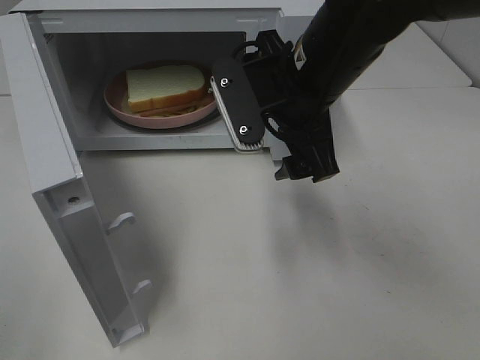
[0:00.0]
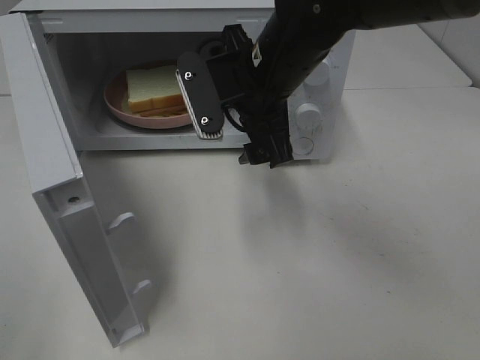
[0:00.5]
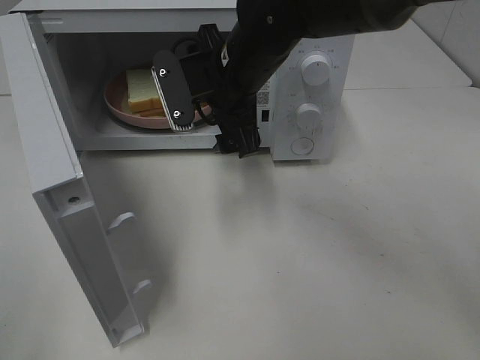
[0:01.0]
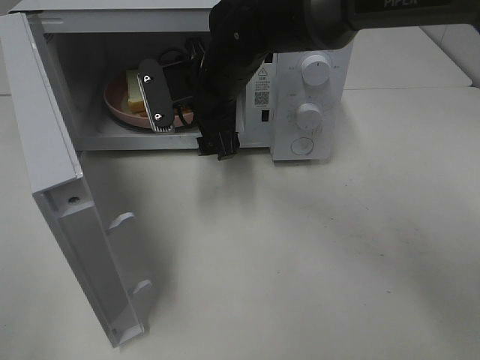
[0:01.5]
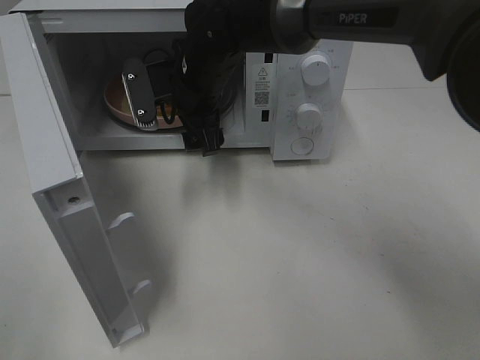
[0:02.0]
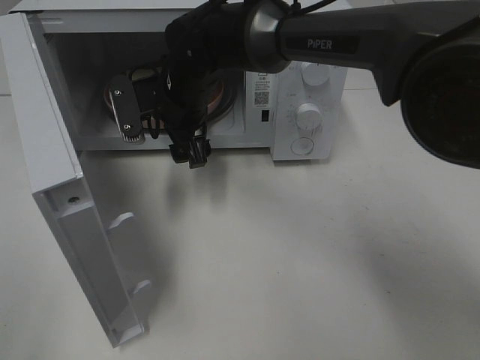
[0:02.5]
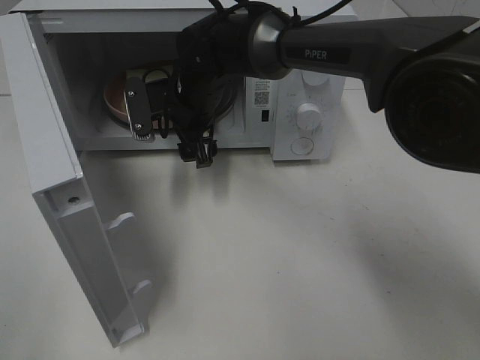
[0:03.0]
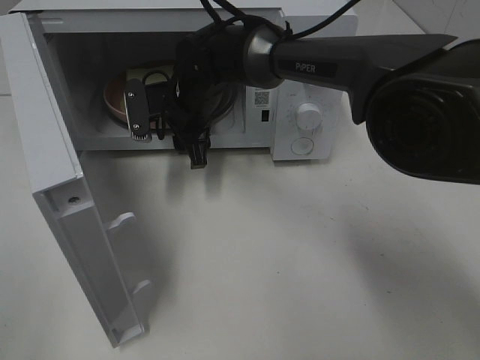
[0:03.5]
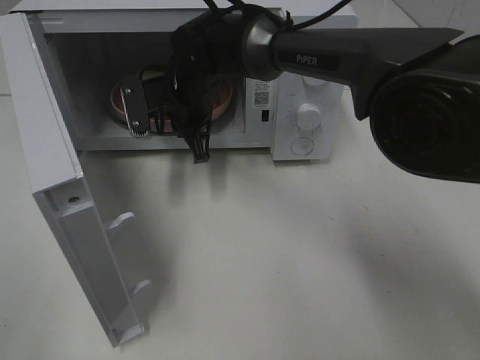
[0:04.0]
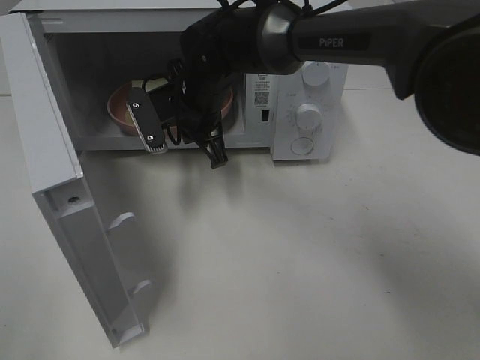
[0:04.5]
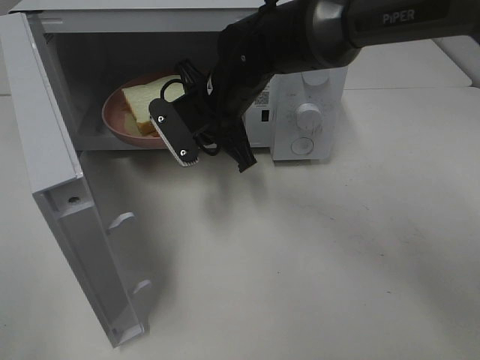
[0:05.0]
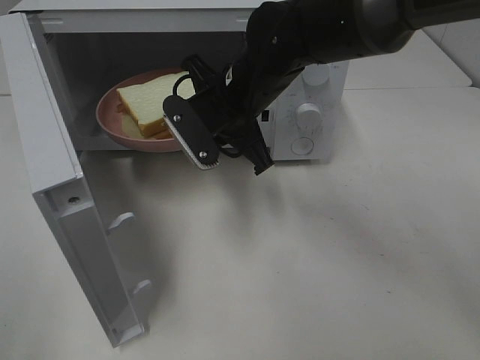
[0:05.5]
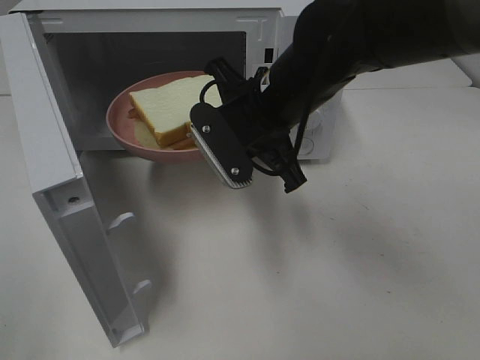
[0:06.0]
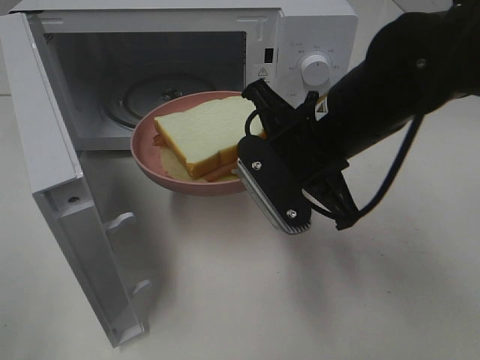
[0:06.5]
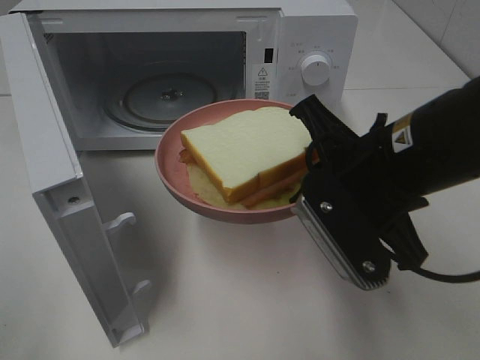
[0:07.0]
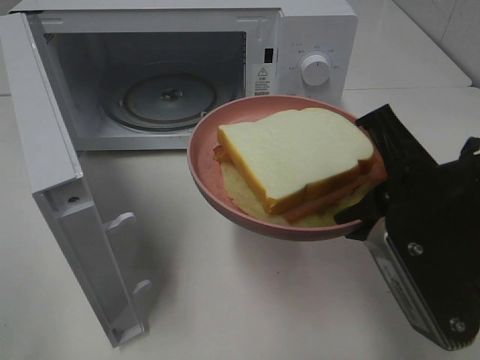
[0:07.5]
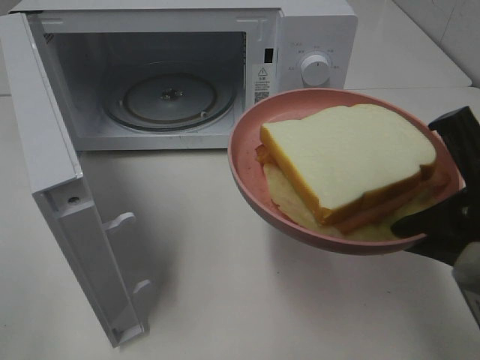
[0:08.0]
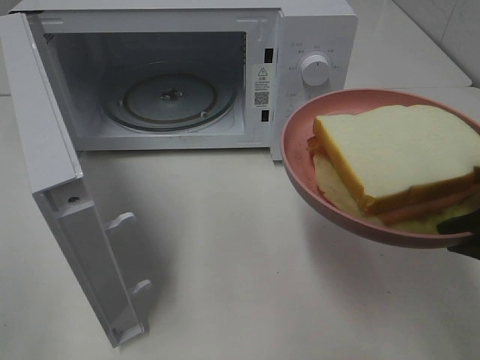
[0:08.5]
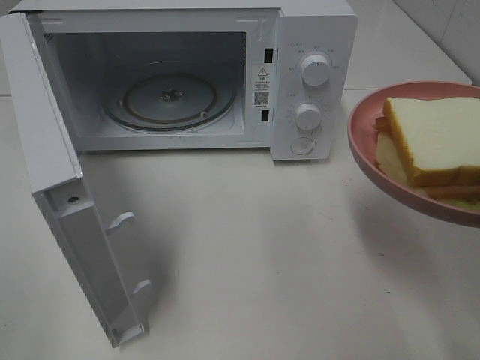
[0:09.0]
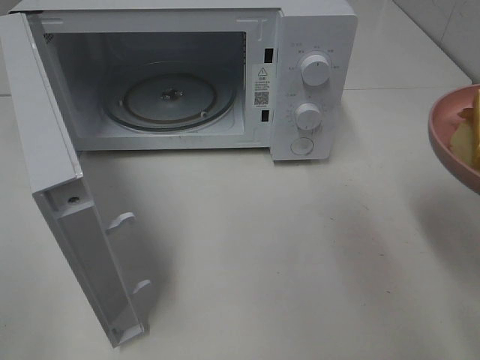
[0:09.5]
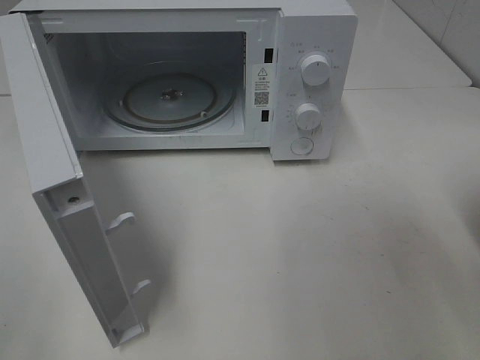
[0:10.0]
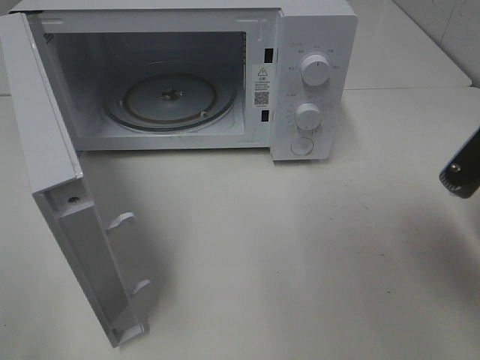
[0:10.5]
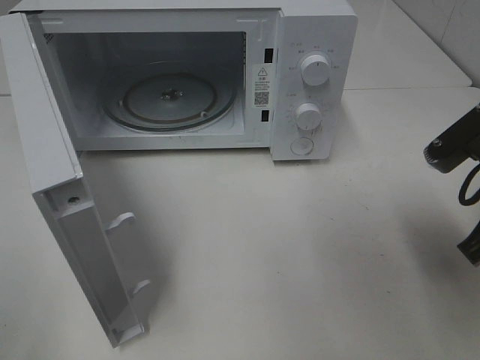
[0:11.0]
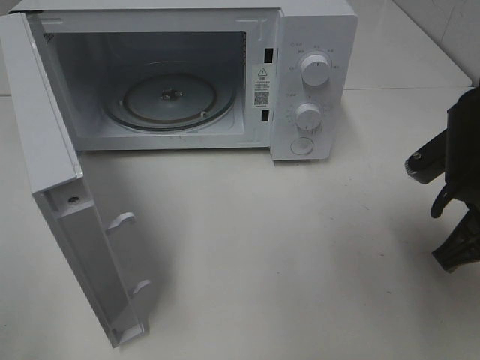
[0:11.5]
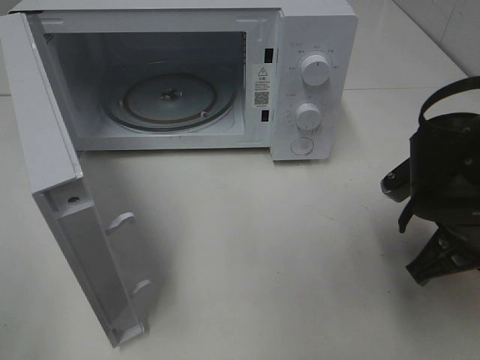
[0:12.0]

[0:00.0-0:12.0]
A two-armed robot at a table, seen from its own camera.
Task of the whole recording: Heat Sandwich.
Step, 0:00.0 to 0:03.5: Right hand: grab the plate with the sandwich.
0:00.0 to 0:02.0: The right gripper heads forward, to the left and downward, covering approximately 15 cm.
0:02.0 to 0:04.0: The right gripper closes its fingers.
0:04.0 to 0:06.0: The right gripper moves backward, to the right and upward, approximately 15 cm.
0:06.0 to 0:08.0: The right gripper heads backward and to the right, covering about 25 cm.
0:08.0 to 0:10.0: The right gripper is displaced to the right by about 5 cm.
0:10.0 to 0:12.0: The right gripper shifts roughly 15 cm downward, forward and to the left.

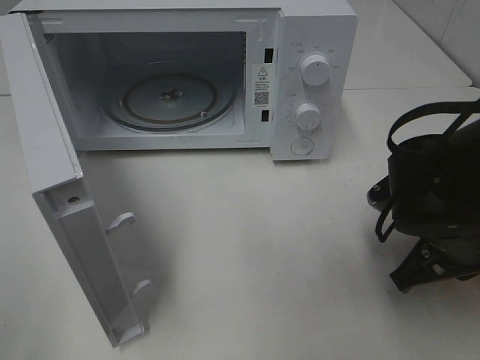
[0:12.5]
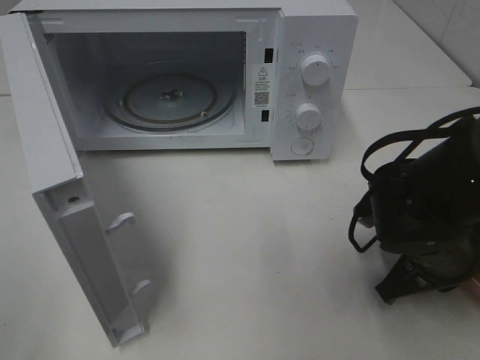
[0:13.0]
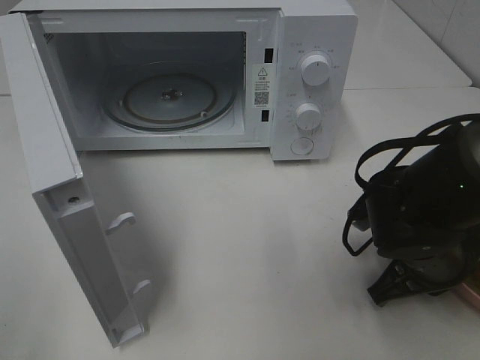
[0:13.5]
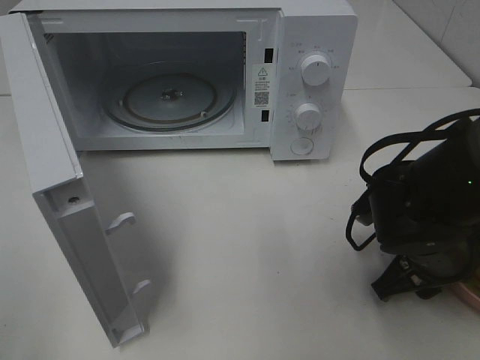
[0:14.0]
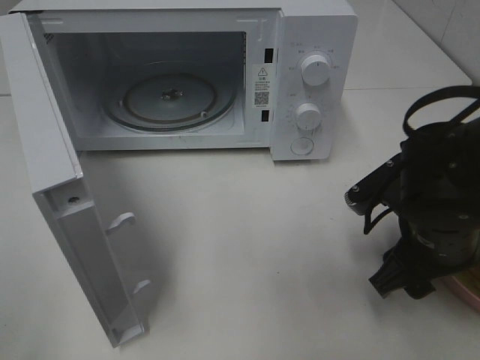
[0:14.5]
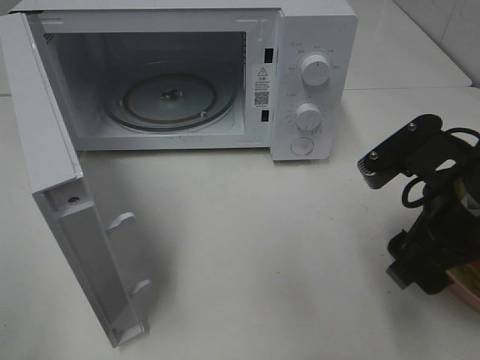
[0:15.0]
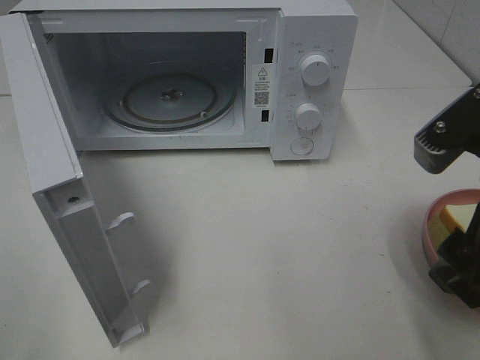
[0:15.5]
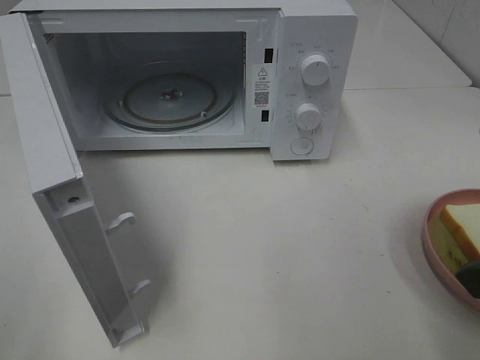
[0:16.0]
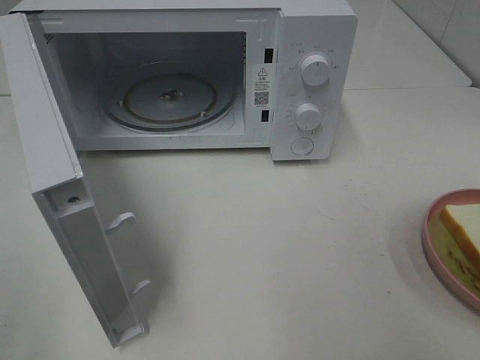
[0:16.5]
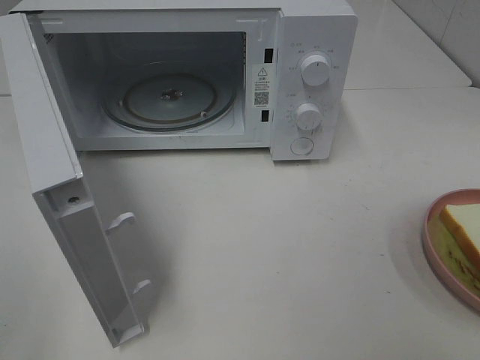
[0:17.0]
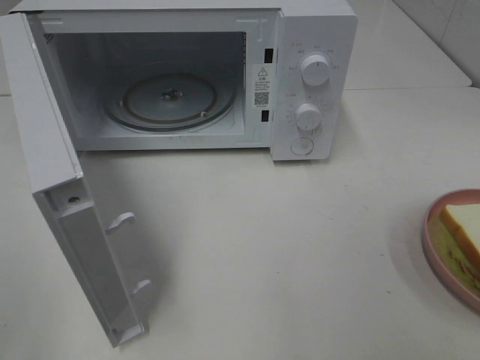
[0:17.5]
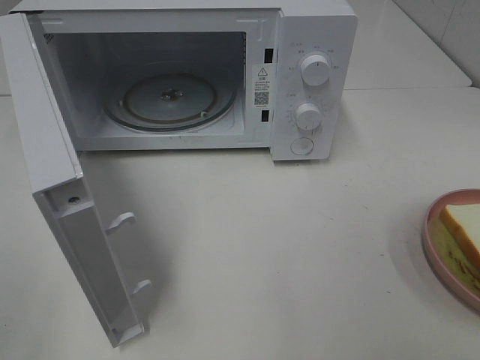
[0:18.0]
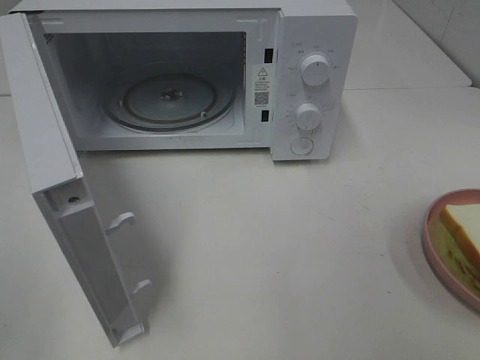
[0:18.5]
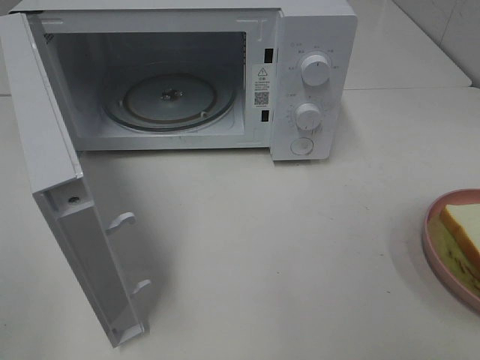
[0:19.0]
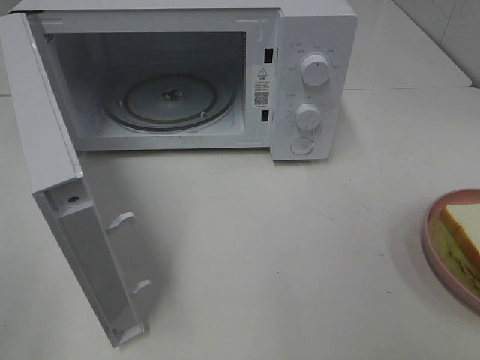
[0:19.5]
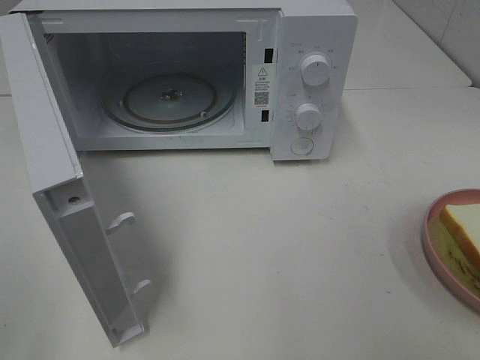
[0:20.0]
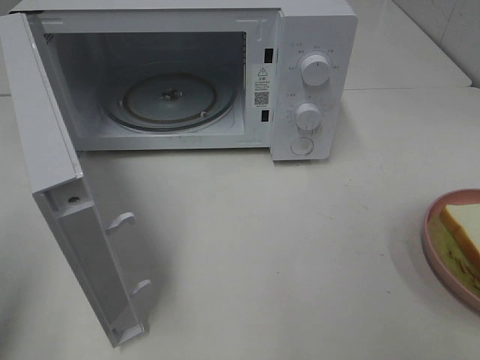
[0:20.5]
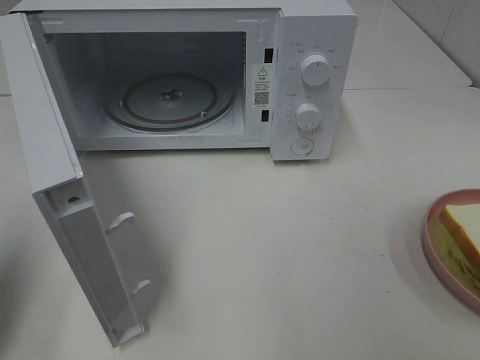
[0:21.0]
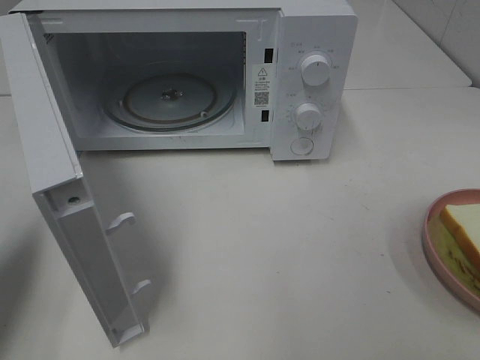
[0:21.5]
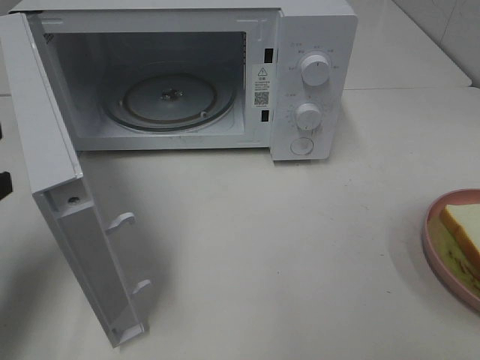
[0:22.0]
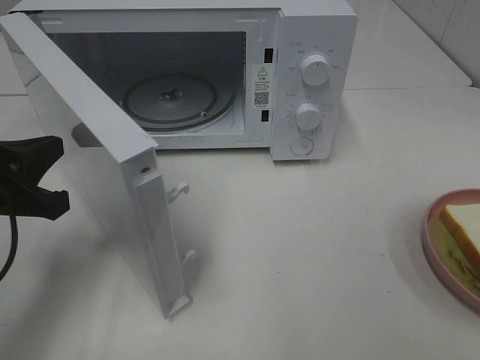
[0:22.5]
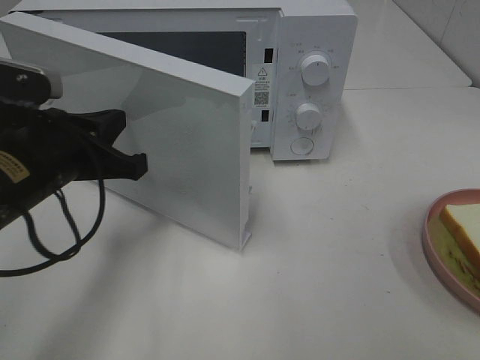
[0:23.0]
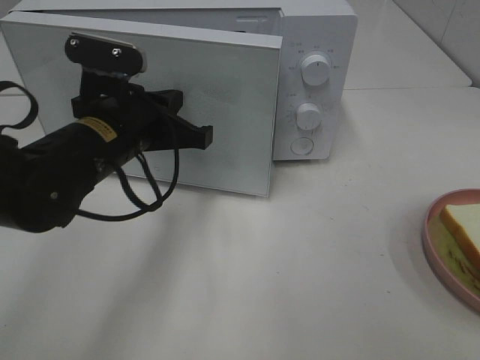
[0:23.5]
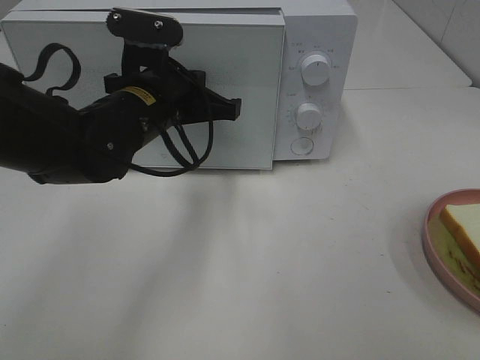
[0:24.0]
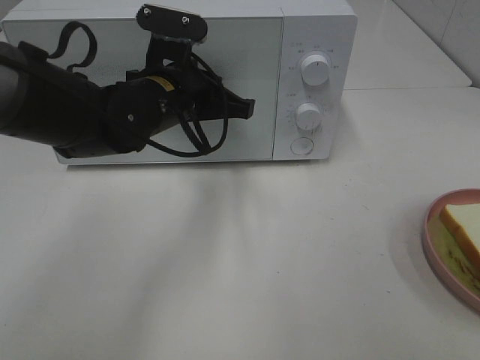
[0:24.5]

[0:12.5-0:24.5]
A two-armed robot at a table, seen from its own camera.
Task of the whole recording: Heat Sandwich.
Step, 0:12.5 to 0:15.5: Right hand: place the plate on the table.
0:12.5 to 0:14.5: The right gripper opens.
0:14.5 to 0:16.5: The right gripper goes about 25 cm upward, backward and to the right.
0:20.5 to 0:22.5: The left gripper goes approximately 20 cm forward, downward and to the right, and closes its fingers.
0:22.5 to 0:24.5: The left gripper heads to the right and forward, covering approximately 20 cm.

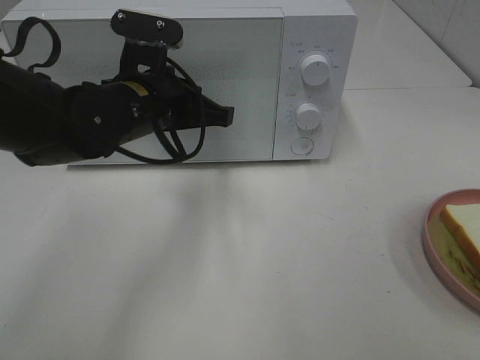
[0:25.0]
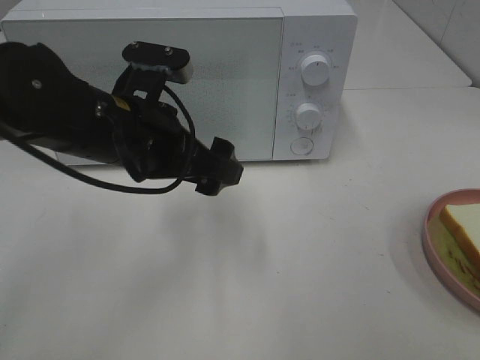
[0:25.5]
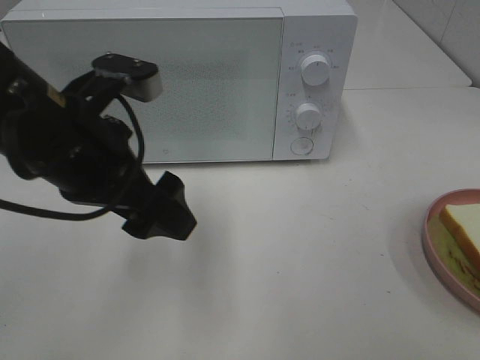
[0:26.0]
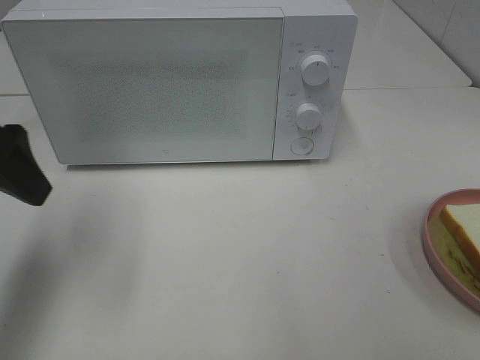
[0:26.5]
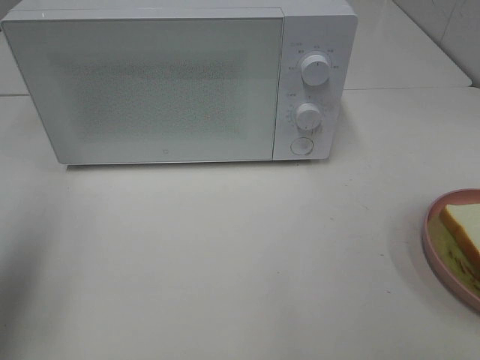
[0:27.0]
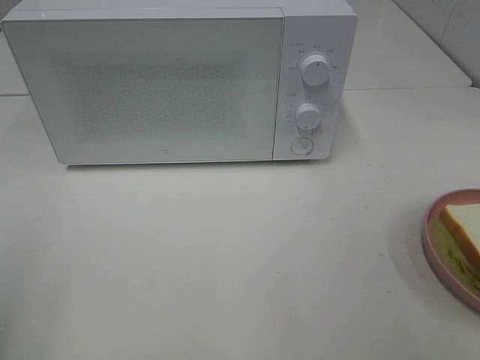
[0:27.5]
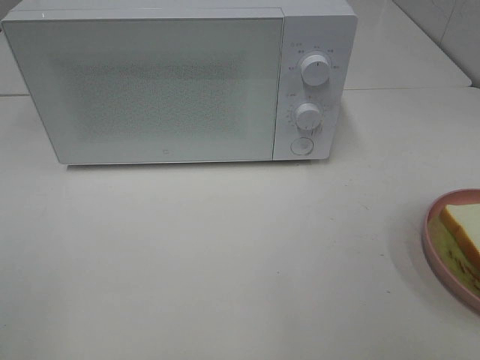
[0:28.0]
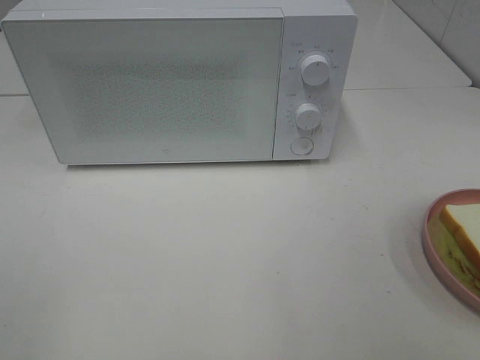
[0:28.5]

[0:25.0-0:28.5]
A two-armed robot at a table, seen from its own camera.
Task of the whole recording: Heat Sandwich.
0:25.0 to 0:27.0: The left gripper goes approximately 30 cm to the left, backward and upward, and opens.
0:27.0 to 0:28.5: The left gripper moves backward, some 15 cm.
